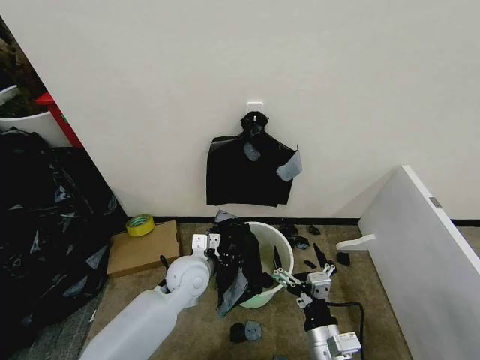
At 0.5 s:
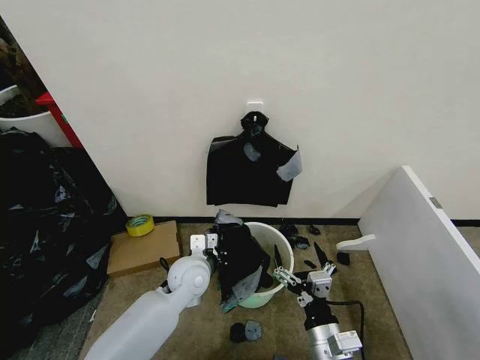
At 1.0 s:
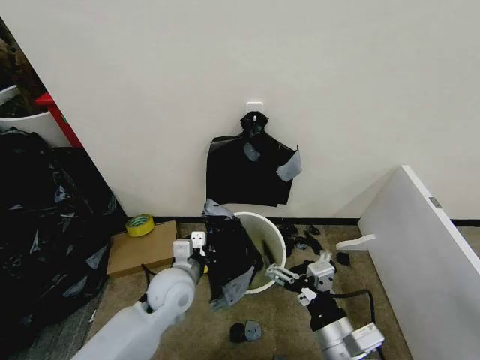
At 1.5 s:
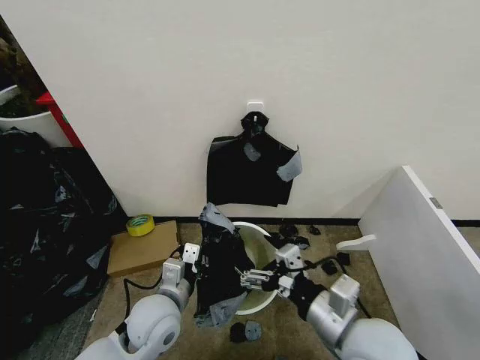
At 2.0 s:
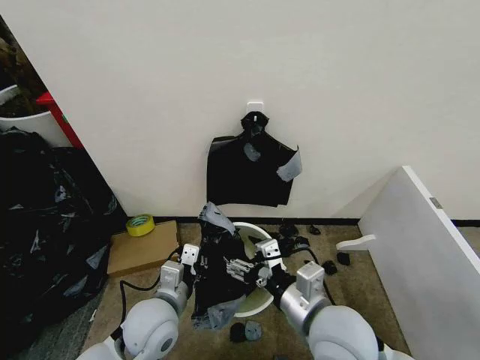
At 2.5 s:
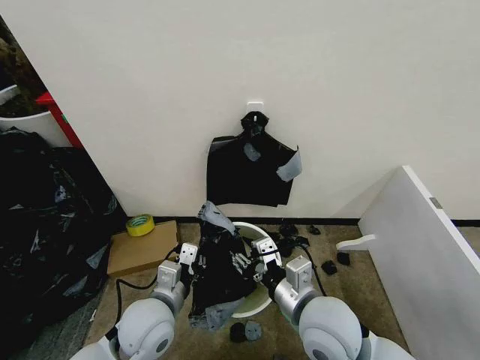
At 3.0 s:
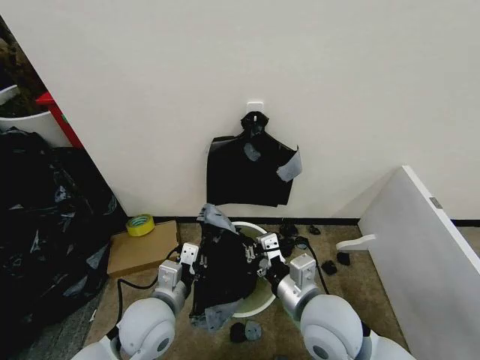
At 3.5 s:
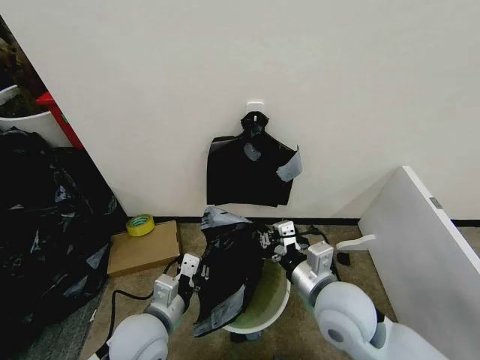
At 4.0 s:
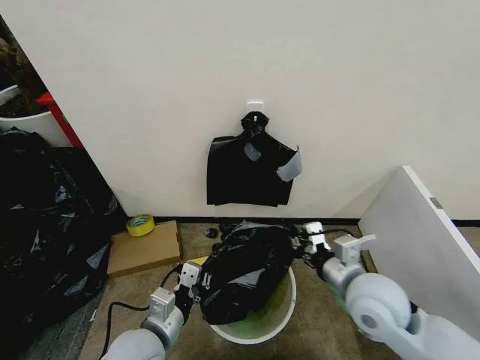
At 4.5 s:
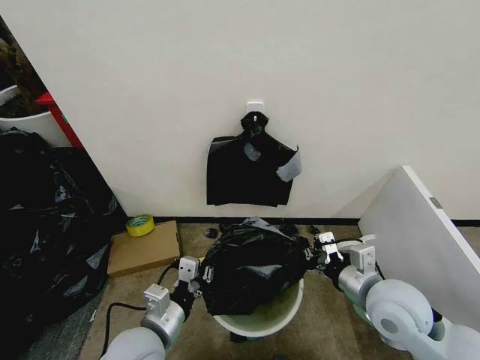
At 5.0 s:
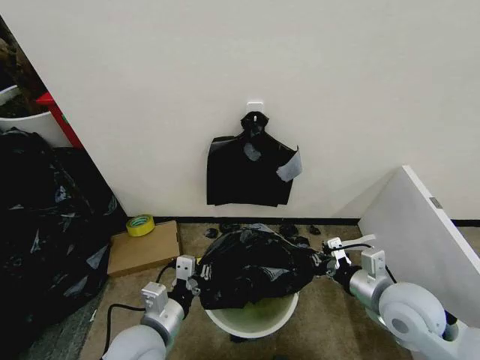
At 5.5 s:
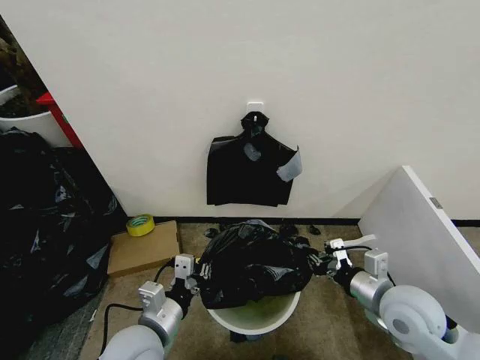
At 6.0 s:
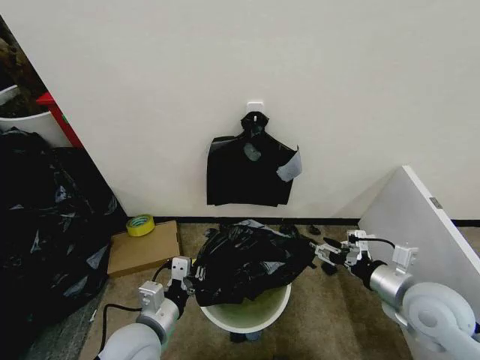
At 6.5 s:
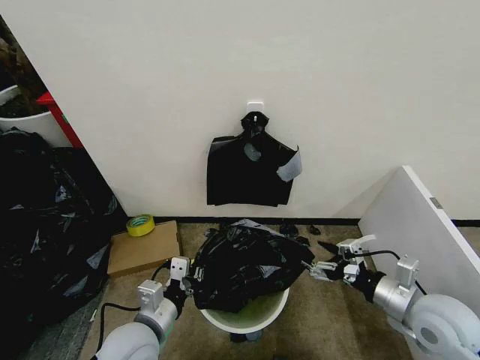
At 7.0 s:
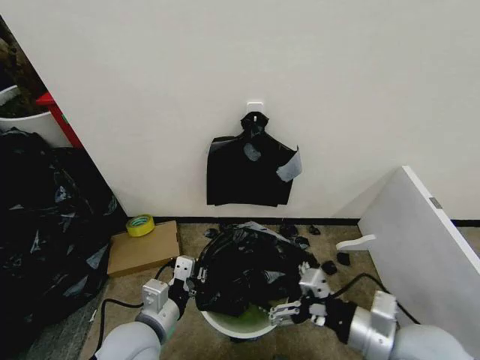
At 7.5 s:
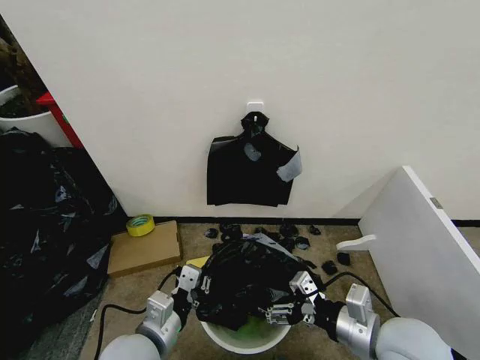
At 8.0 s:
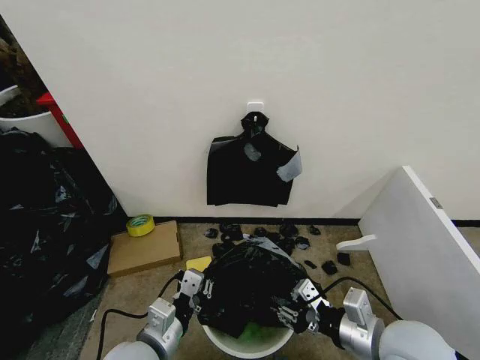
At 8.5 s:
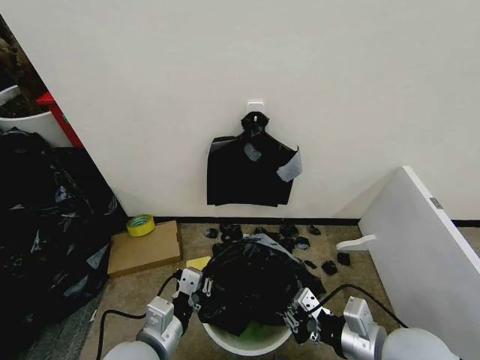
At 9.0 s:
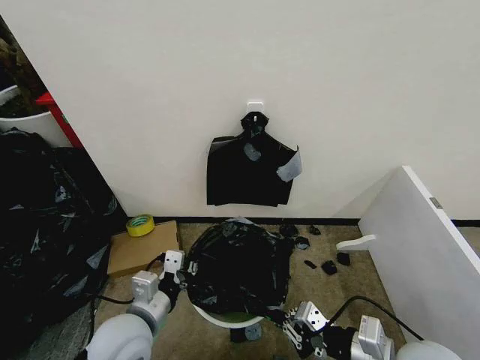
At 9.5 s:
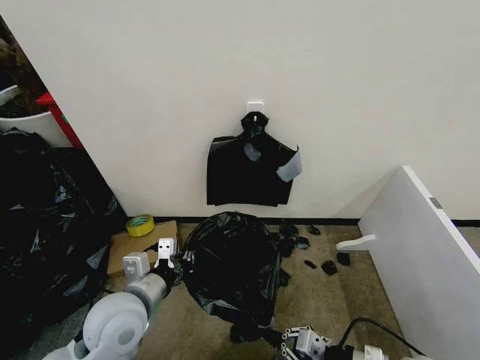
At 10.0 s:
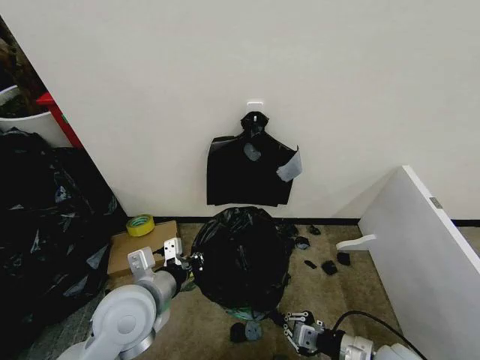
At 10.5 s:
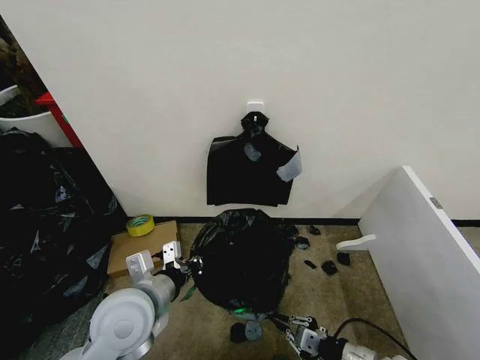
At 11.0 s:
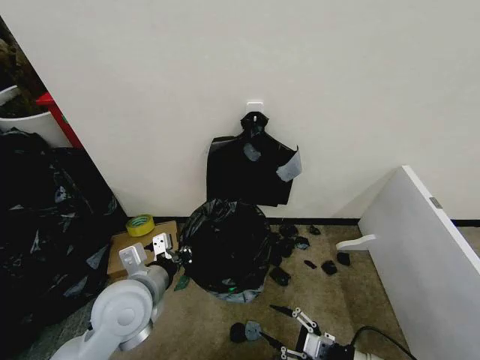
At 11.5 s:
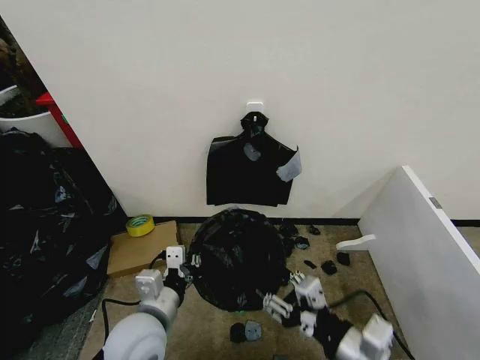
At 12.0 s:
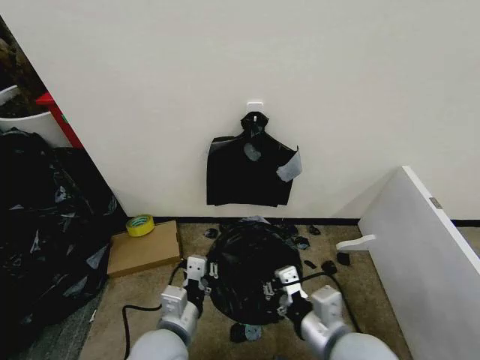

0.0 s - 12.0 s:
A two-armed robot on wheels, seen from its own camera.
Task of the whole recording: Place the garbage bag over the trash bin.
0.0 s - 2.0 s: The right gripper moves upward and forward, roughly 15 cm. The left gripper moves backward, roughly 10 cm, and closes its fingers.
2.0 s - 4.0 s: The left gripper ends up some 5 cm from where it was. The right gripper shifts about 10 cm to the right and forward, and closes up.
4.0 s - 6.0 s: The right gripper moves to the right, some 10 cm, and opens.
6.0 s - 8.0 s: The right gripper heads to the left and backward, covering approximately 10 cm.
8.0 s - 10.0 s: The left gripper moves forward and upward, about 10 cm. The right gripper travels downward by some 15 cm, and closes its fingers.
10.0 s - 12.0 s: The right gripper moves upward and to the left, approximately 20 cm, and opens, then closes again; the left gripper heads downward, backward and to the right, covering about 10 cm.

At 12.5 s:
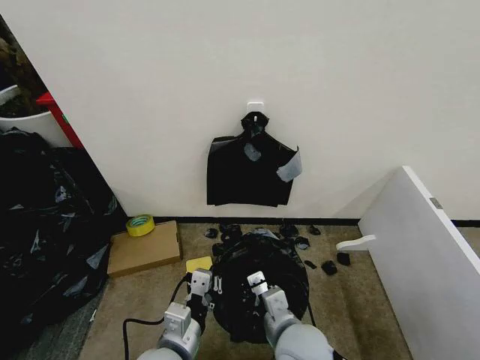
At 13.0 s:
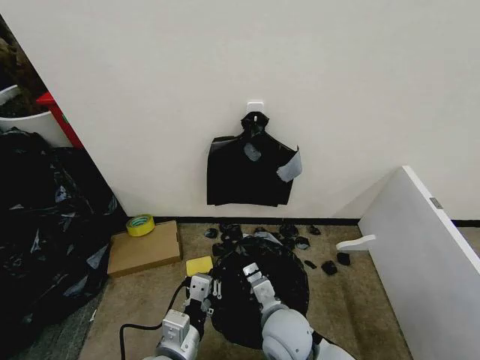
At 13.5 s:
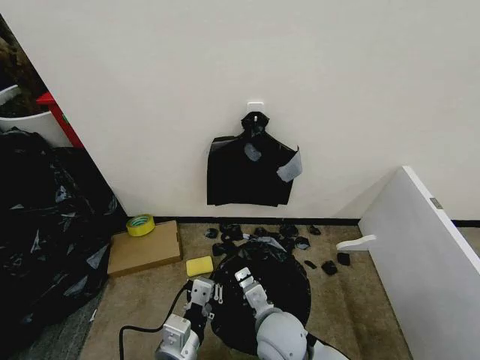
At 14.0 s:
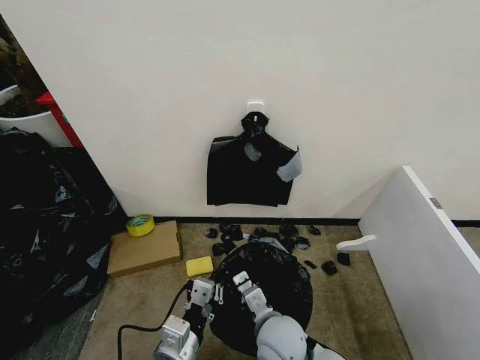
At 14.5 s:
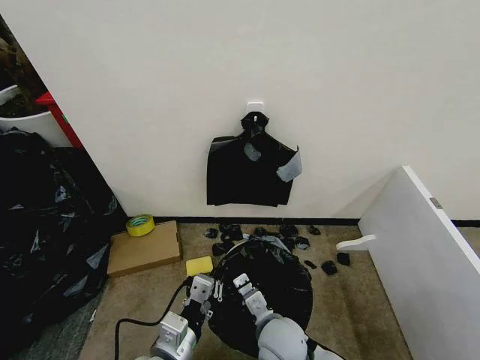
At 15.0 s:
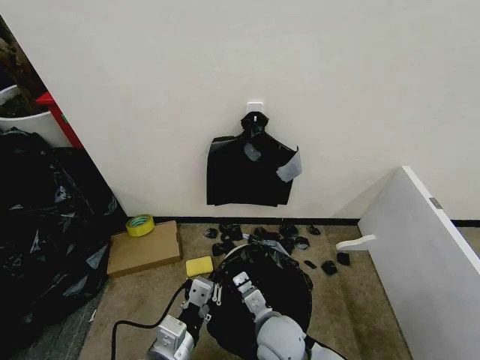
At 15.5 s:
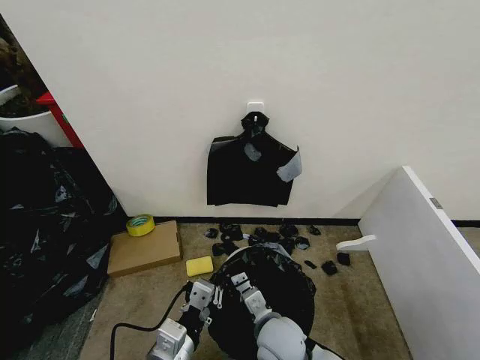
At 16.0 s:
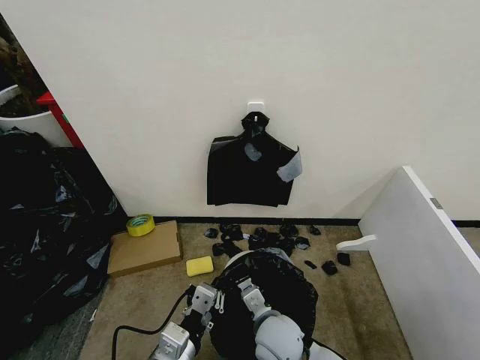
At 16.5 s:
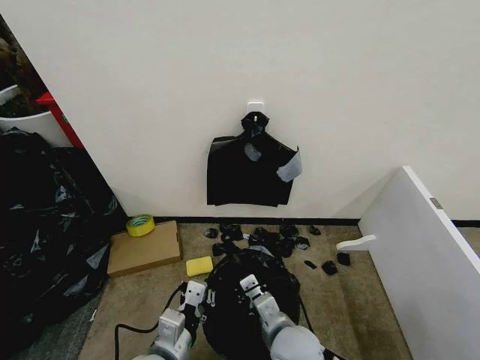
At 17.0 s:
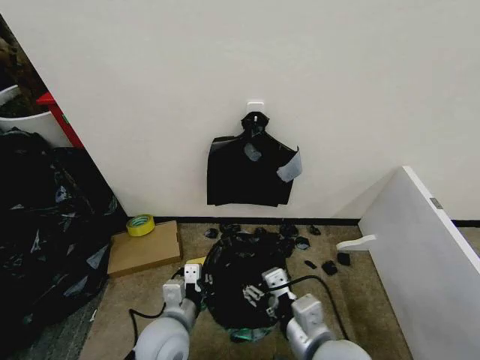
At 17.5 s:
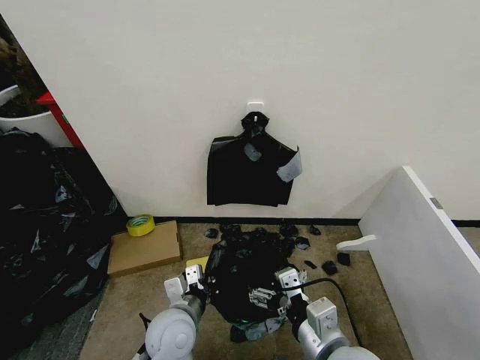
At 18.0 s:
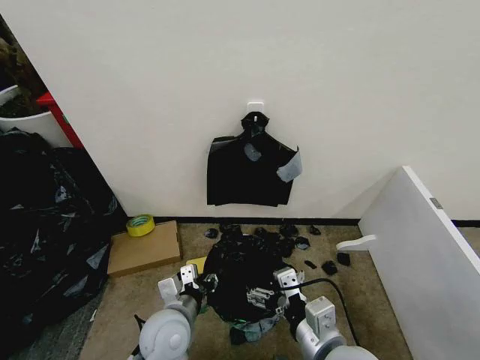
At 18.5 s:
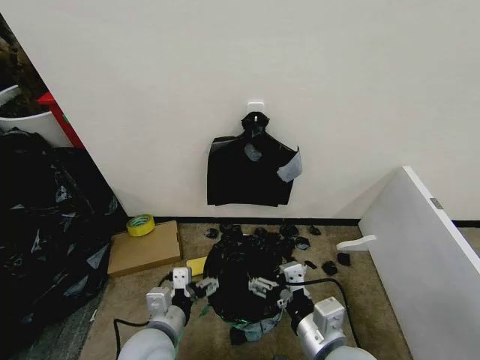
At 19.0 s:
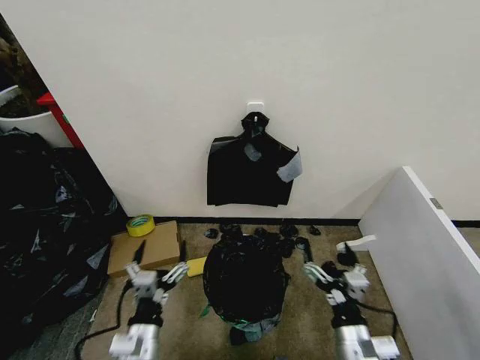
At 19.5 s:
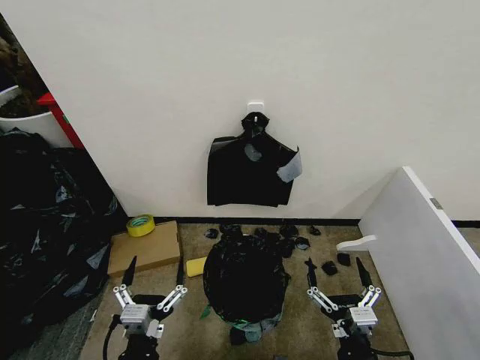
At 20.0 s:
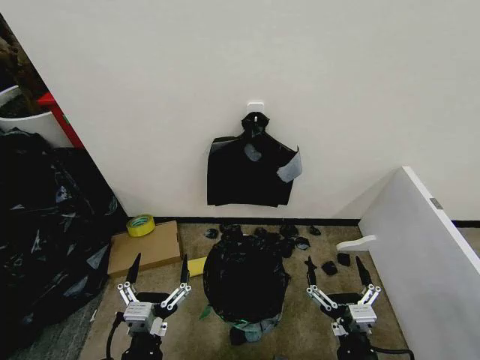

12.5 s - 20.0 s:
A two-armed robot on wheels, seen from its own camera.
Task of the whole recording: Place the garbage bag over the trash bin.
12.5 s - 14.5 s: The right gripper heads downward, covering about 5 cm.
14.5 s - 16.5 s: The grippers move only a little.
16.5 s - 18.0 s: The right gripper is displaced upward and to the right by roughly 10 cm, and opens its fingers; the left gripper shifts approximately 10 cm forward, and opens.
18.0 s - 20.0 s: The left gripper shifts approximately 15 cm backward, and opens its fingers; the right gripper shifts approximately 15 cm downward, to the right and backward.

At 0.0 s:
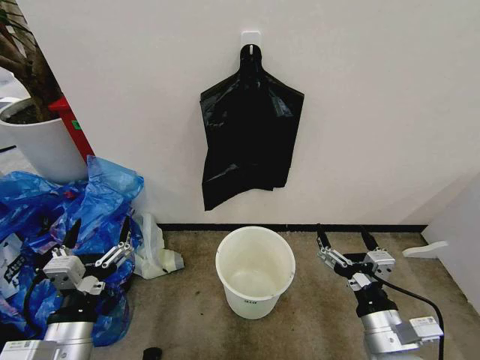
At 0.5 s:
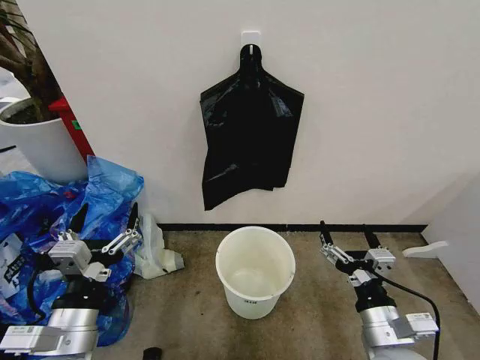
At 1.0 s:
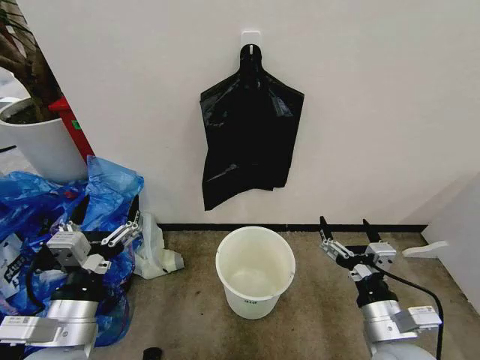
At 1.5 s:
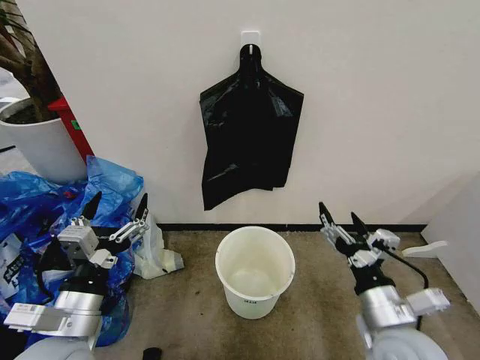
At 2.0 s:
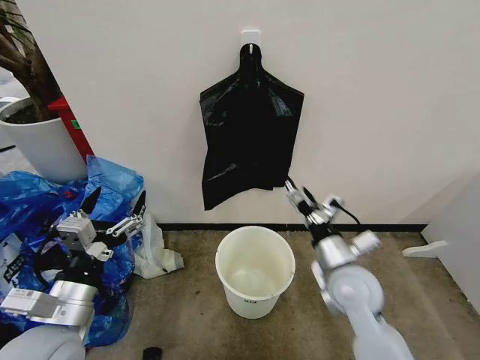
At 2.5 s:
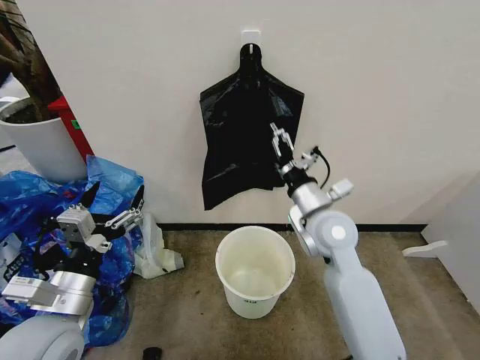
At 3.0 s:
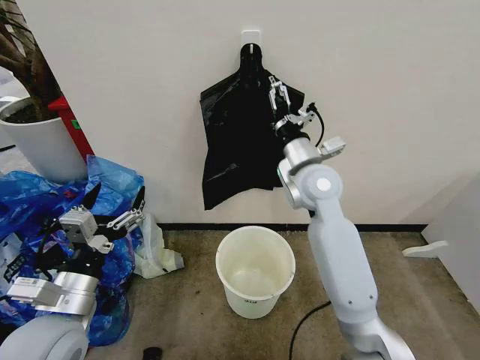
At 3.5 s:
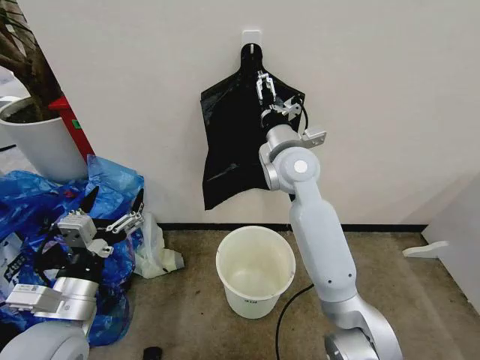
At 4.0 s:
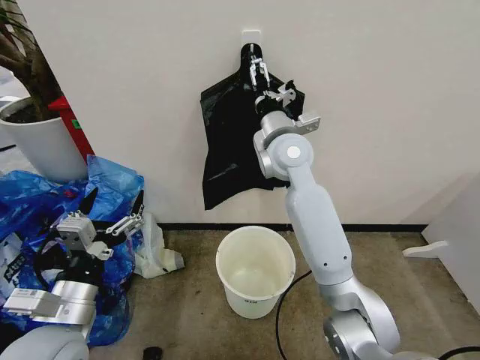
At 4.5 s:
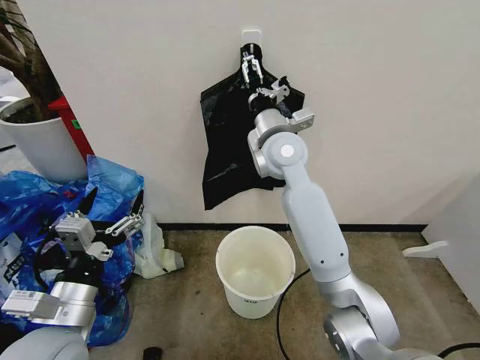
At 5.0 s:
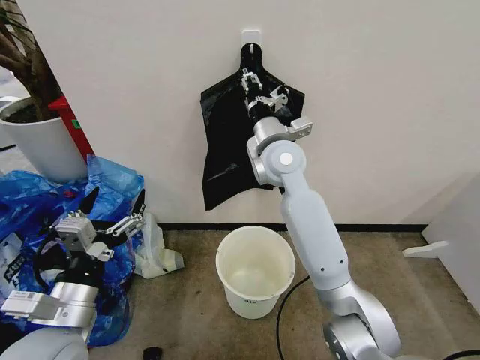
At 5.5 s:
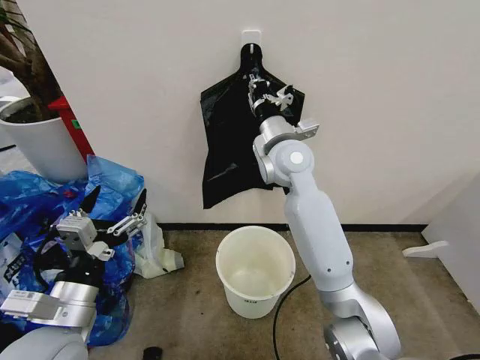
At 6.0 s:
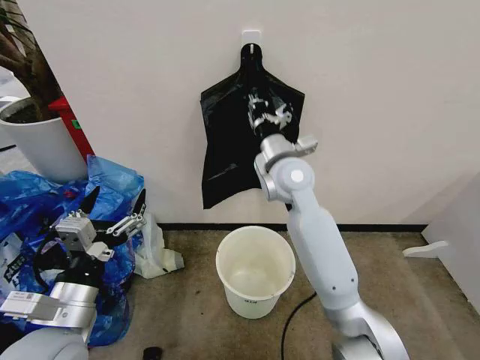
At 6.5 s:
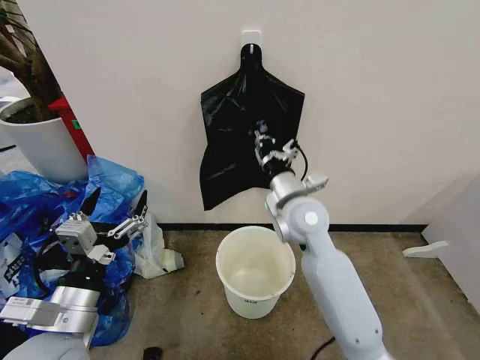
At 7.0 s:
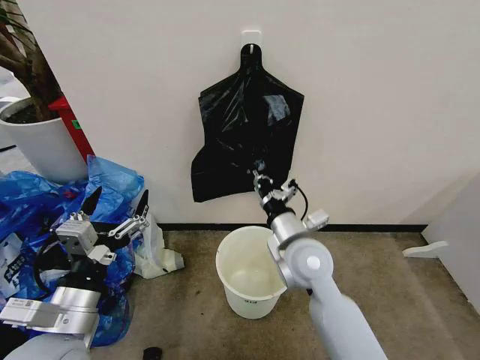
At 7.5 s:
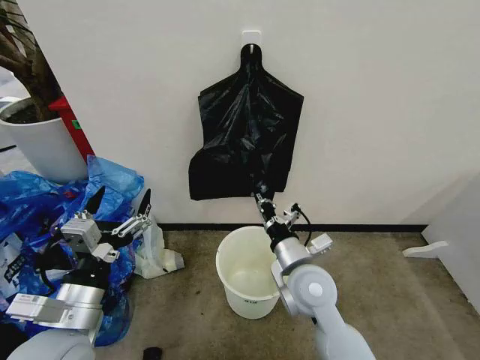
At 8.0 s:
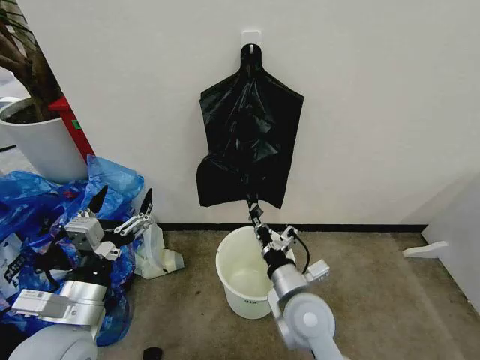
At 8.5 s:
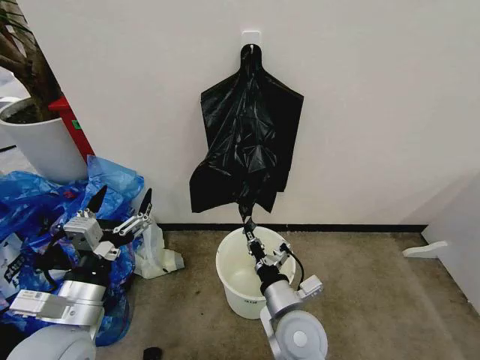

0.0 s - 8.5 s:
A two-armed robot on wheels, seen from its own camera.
Task of the whole recording: Place the garbage bag over the trash bin.
2.0 s - 4.0 s: The right gripper is displaced forward, upward and to the left by some 30 cm.
4.0 s - 6.5 s: The right gripper goes about 15 cm downward and backward, and closes.
6.5 s - 8.5 s: The right gripper heads backward and downward, covering about 20 cm.
